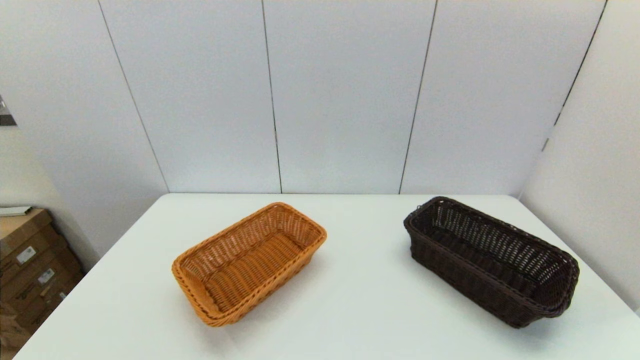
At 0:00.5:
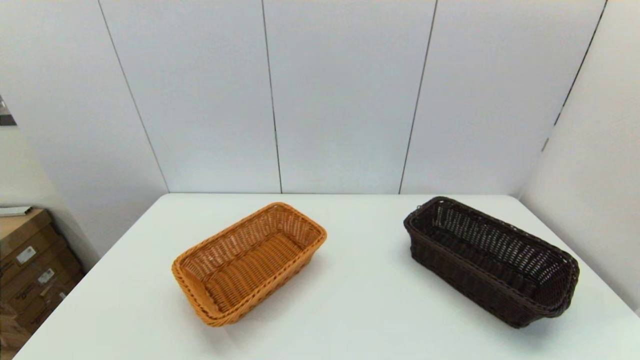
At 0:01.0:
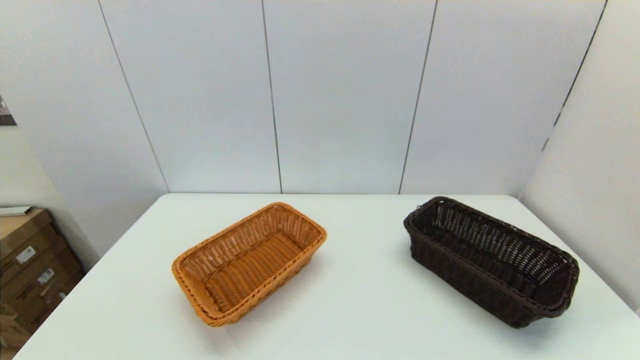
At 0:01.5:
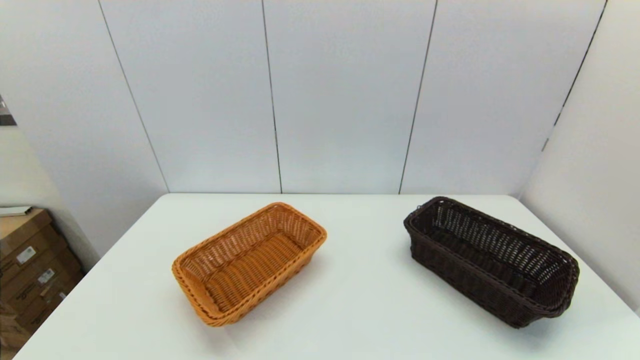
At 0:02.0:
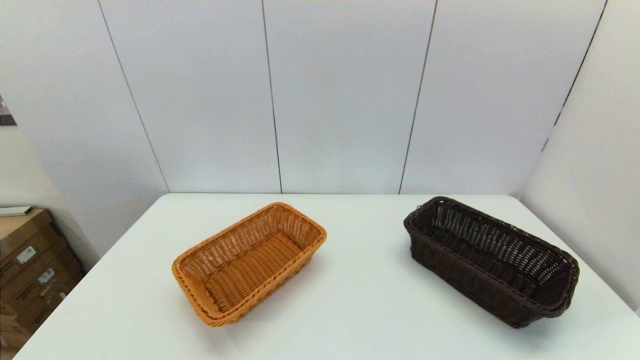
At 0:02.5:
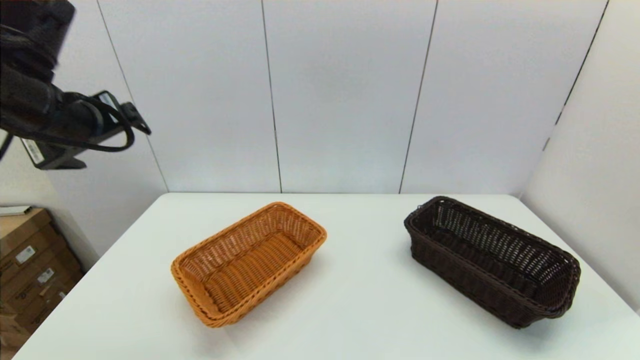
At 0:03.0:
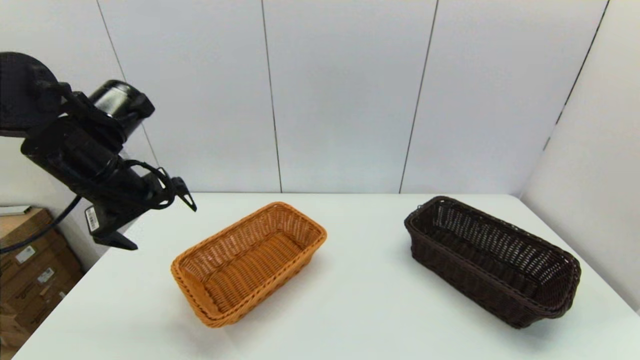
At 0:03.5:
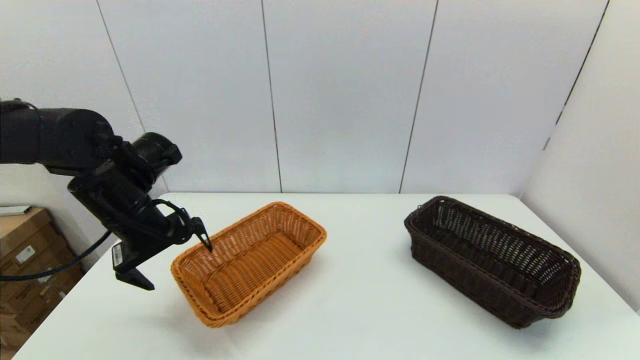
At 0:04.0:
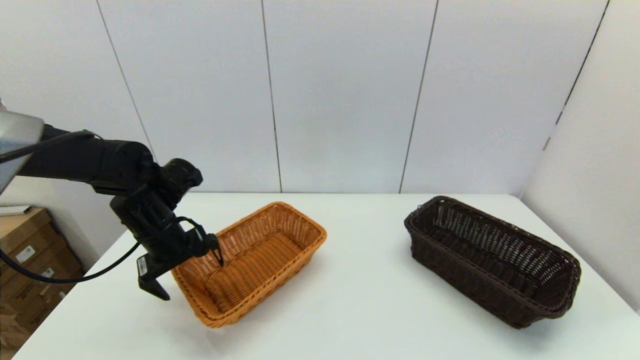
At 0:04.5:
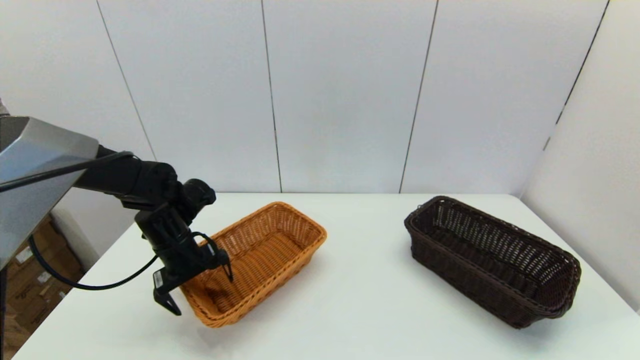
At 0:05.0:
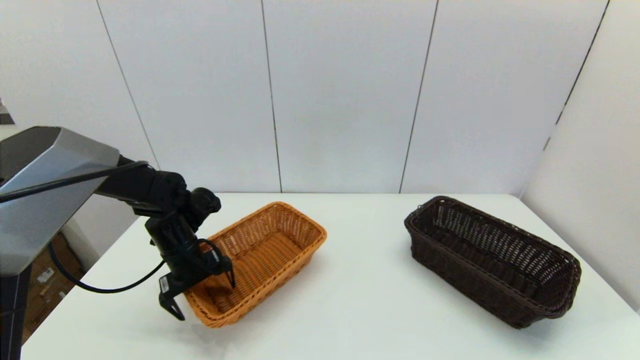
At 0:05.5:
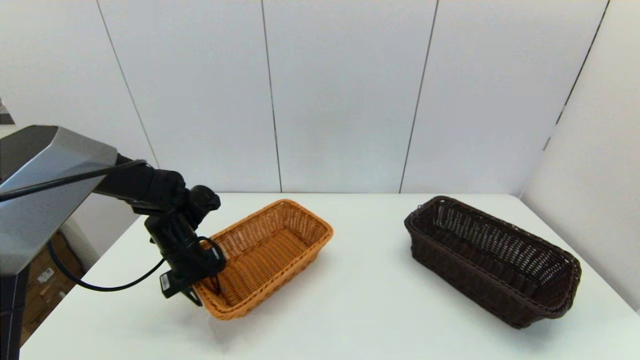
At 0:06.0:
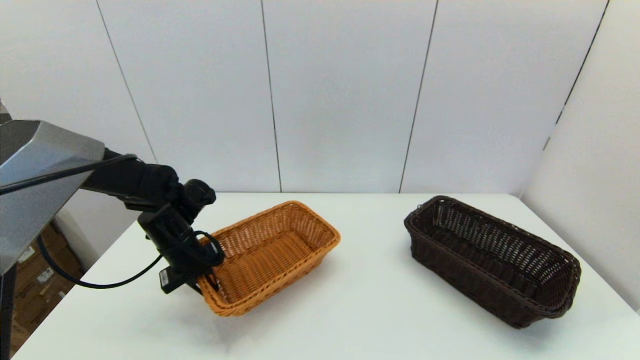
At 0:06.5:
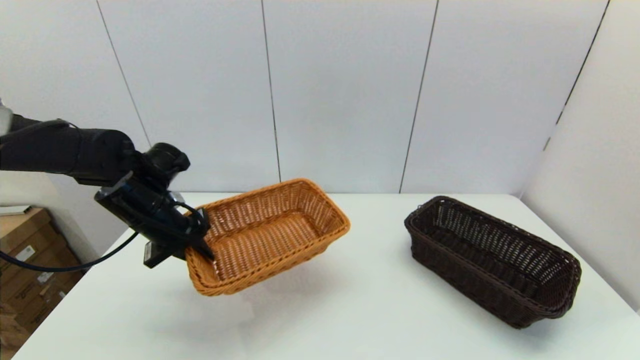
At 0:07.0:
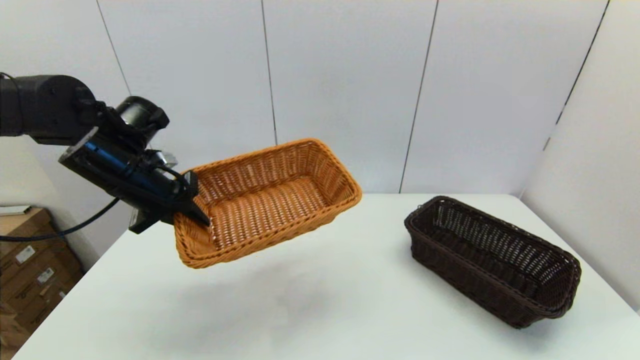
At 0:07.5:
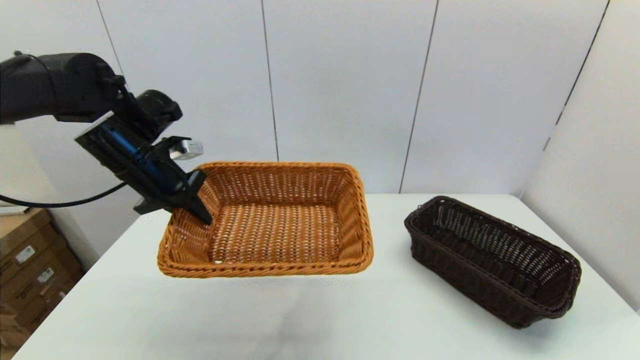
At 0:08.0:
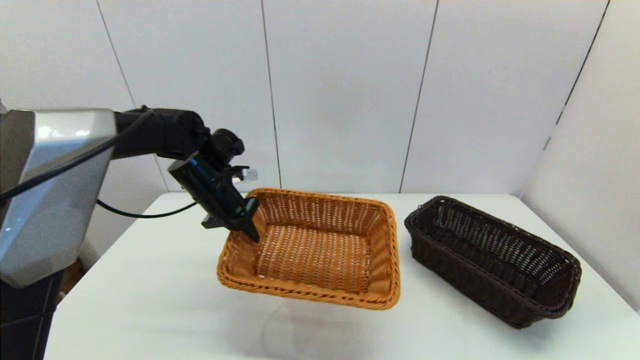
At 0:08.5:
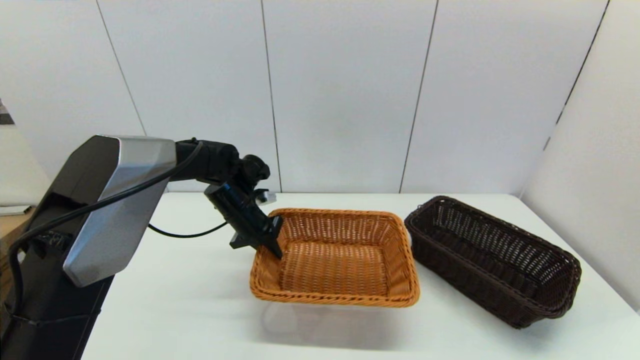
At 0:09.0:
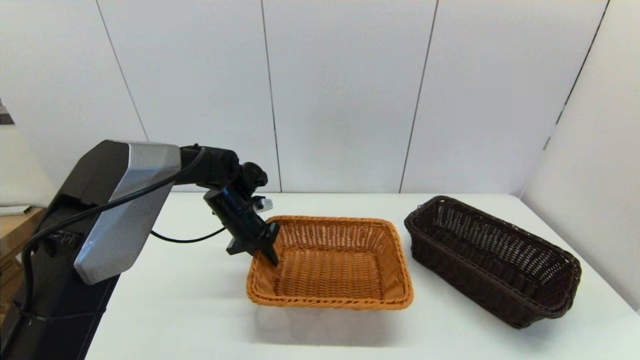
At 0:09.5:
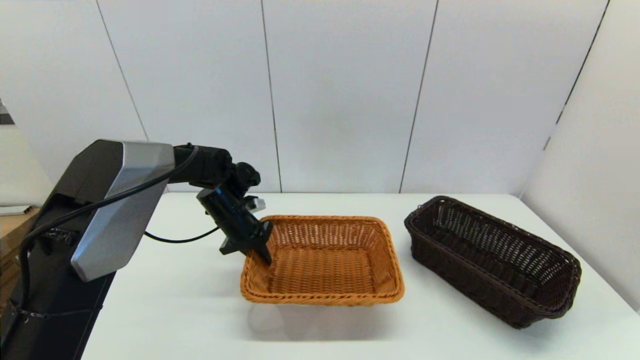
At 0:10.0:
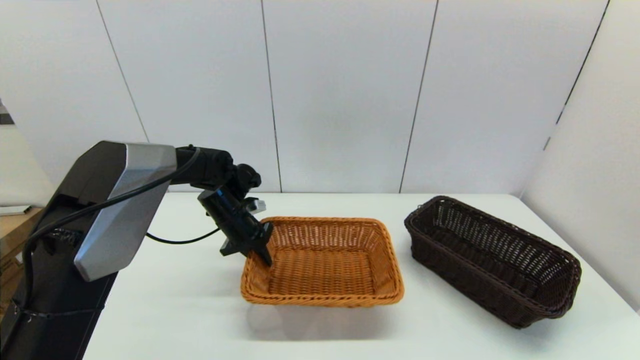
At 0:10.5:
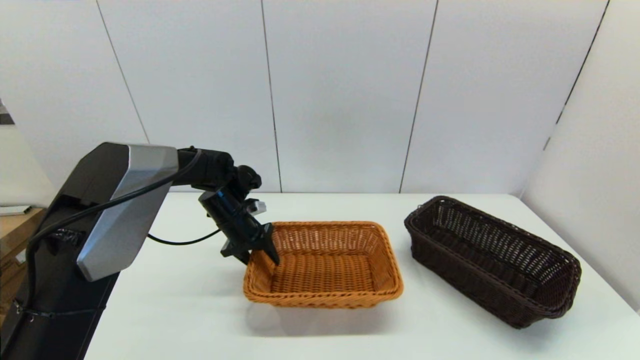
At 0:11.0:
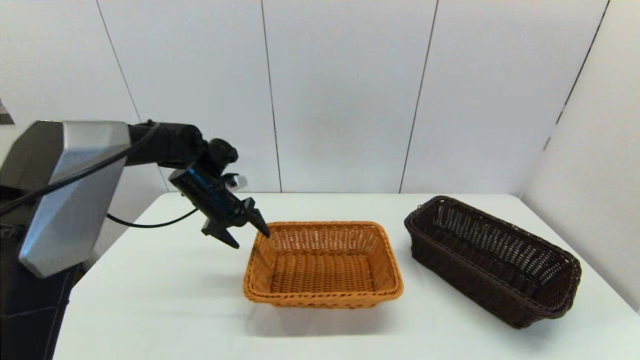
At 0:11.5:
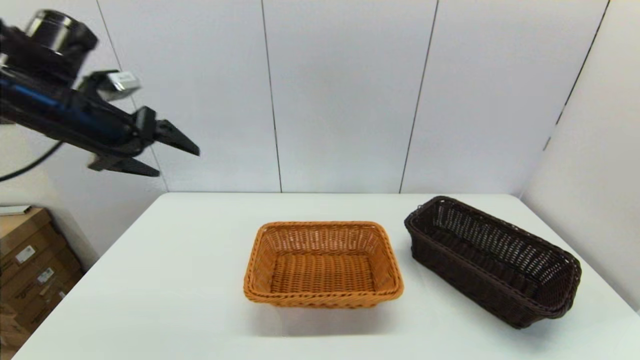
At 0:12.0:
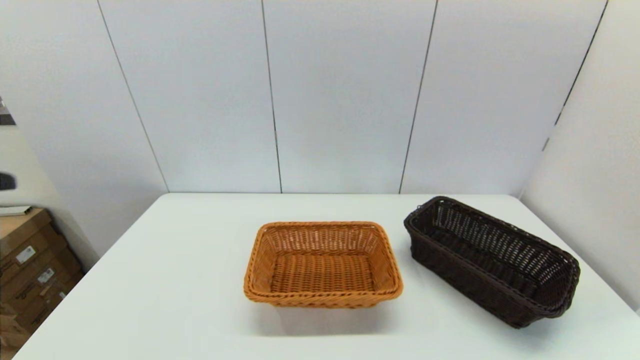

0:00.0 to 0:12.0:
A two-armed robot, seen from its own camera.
Task of the whole recording: stack a basket on top of another basket.
Step, 0:02.5 to 0:05.5: Grasp the light basket with the left gripper.
Step, 0:06.0 to 0:11.0: Place the light basket on the middle of the table with the left gripper.
0:02.0 to 0:04.0: The left gripper travels downward and forward by approximately 35 cm.
0:04.0 to 0:06.0: The left gripper closes.
0:06.0 to 0:08.0: The left gripper heads to the right and upward, covering roughly 10 cm.
0:08.0 to 0:10.0: The left gripper heads downward, covering about 5 cm.
0:10.0 to 0:12.0: The left gripper heads backward and upward, covering some 40 cm, and opens its fingers.

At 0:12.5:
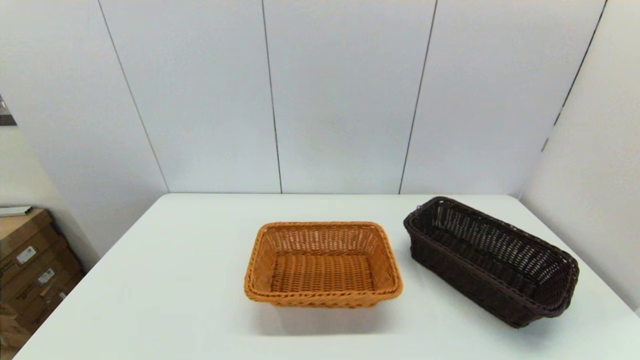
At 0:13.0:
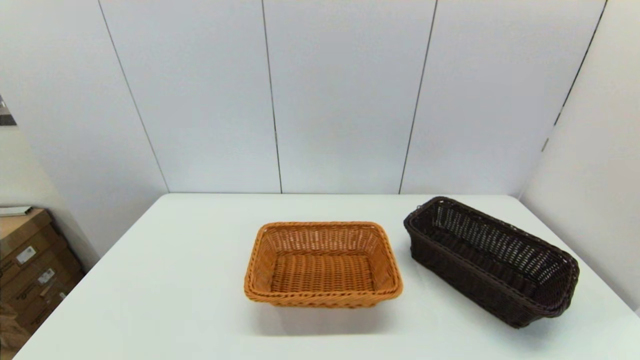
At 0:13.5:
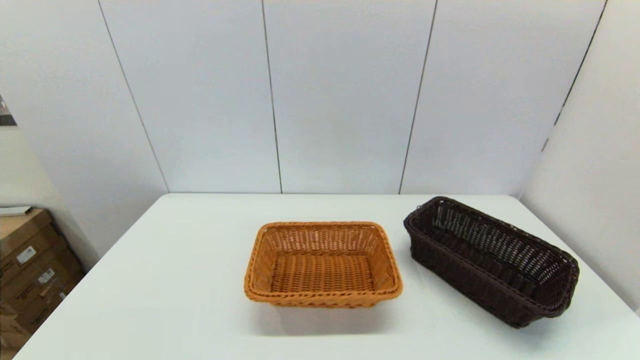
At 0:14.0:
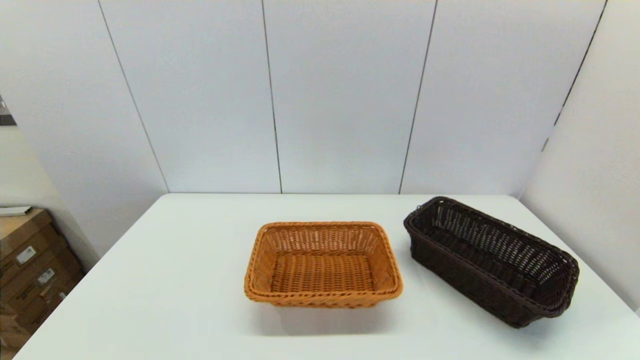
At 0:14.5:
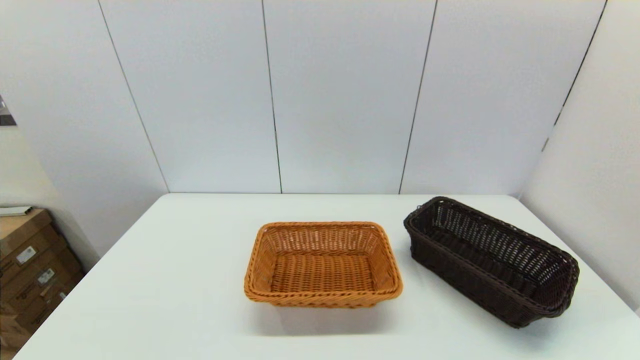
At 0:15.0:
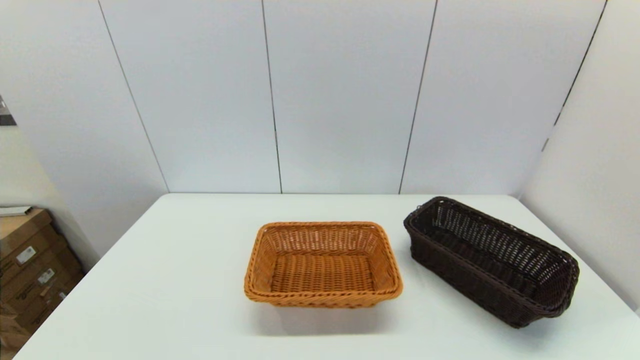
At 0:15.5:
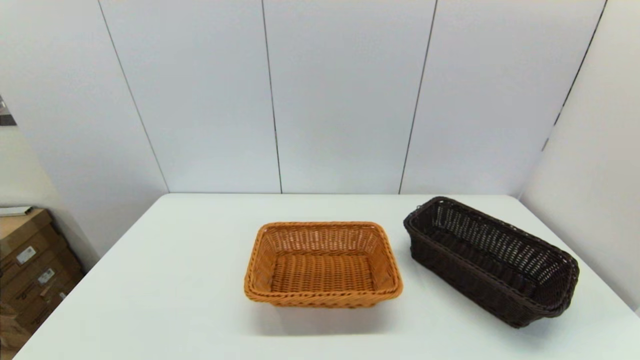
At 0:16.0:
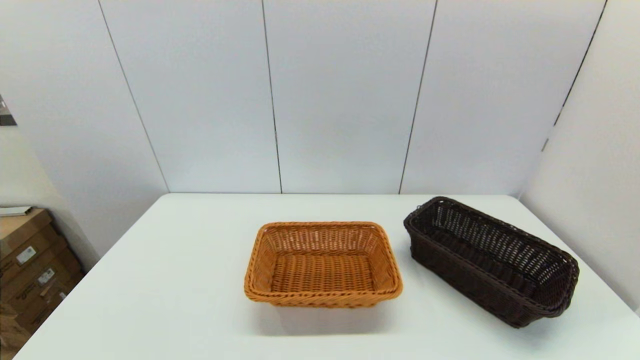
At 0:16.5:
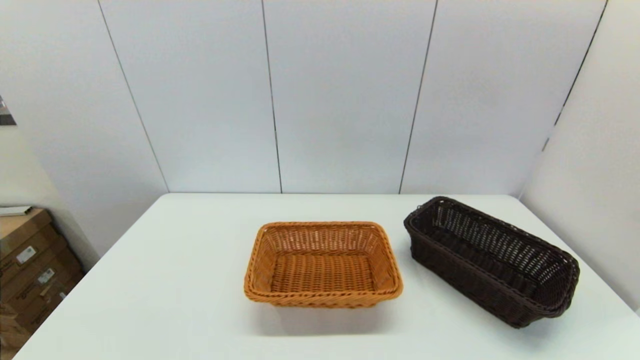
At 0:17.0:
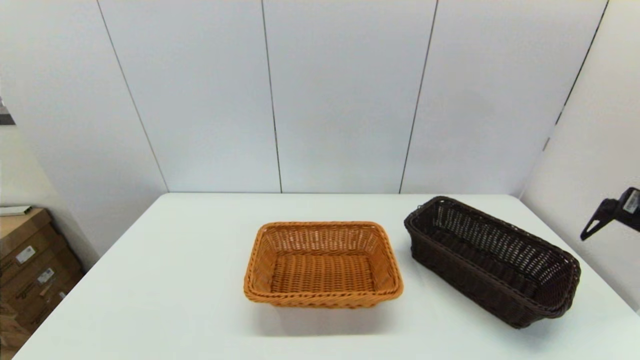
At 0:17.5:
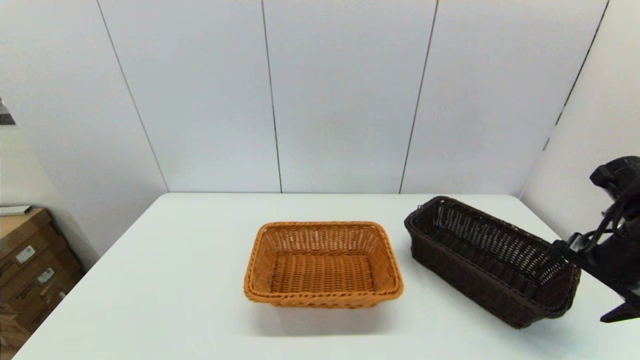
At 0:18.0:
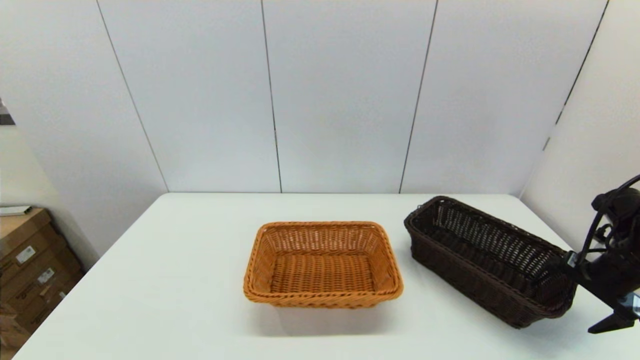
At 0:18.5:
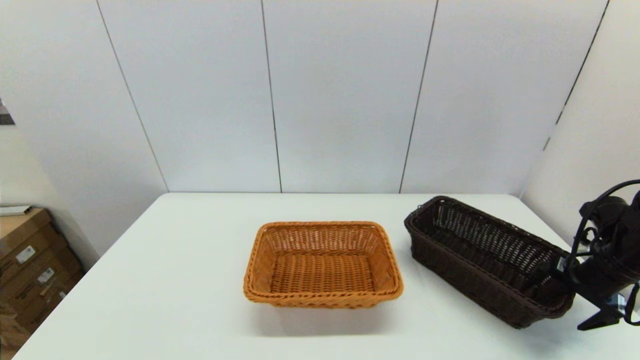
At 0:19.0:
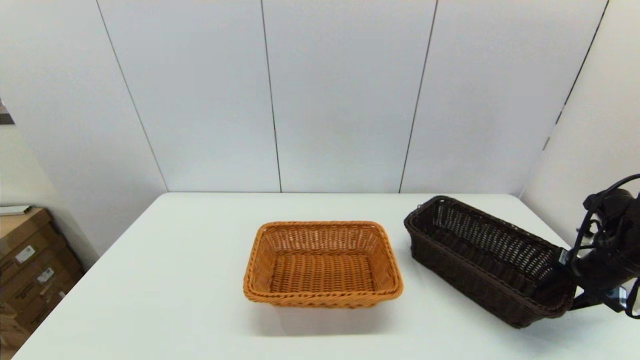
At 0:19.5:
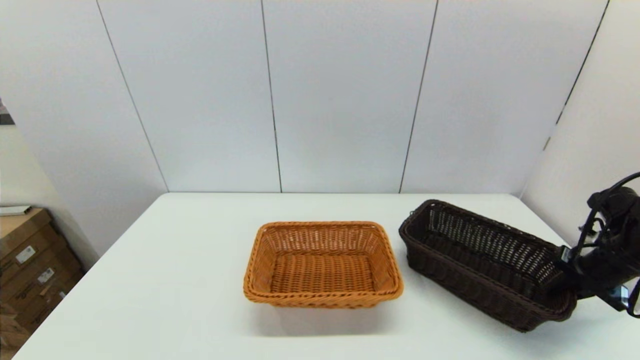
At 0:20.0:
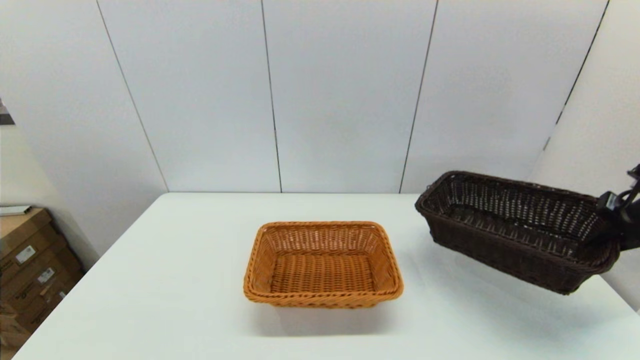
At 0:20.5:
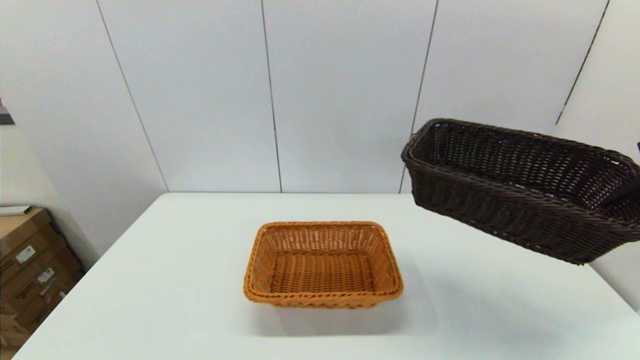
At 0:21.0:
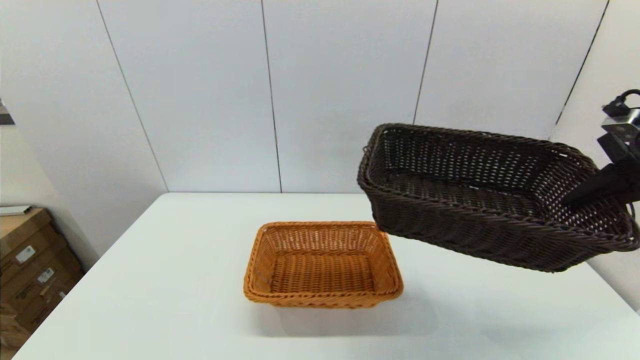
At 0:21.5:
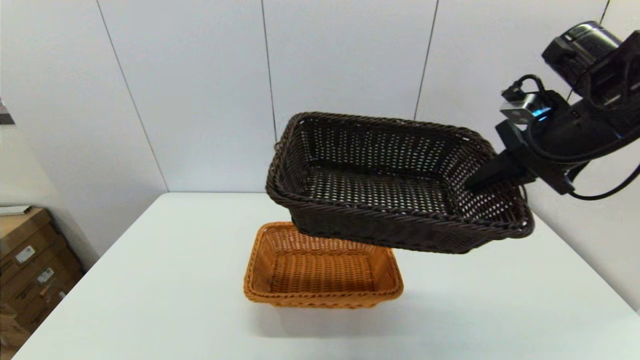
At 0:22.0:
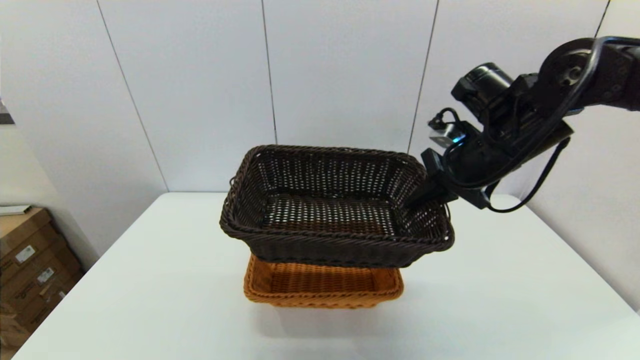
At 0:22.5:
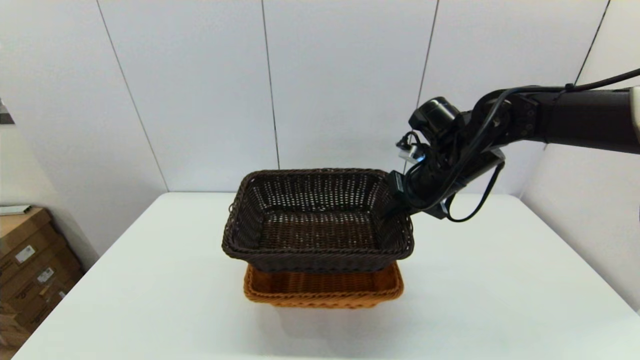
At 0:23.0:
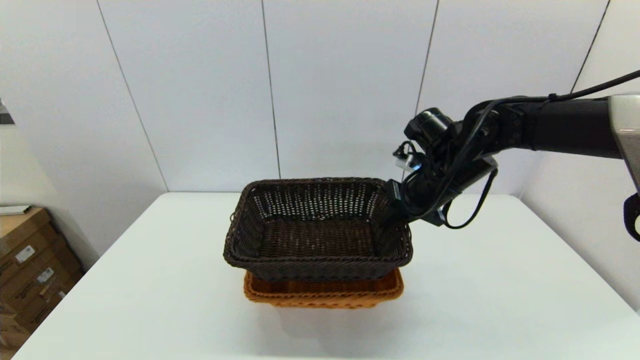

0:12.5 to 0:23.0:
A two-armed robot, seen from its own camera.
Task of the whole recording: stack a basket on top of another basket.
Step, 0:12.5 to 0:19.0: Grasp the dark basket with the right gripper.
0:16.5 to 0:19.0: The right gripper shifts some 30 cm downward and forward, and closes its fingers.
0:19.0 to 0:21.0: The right gripper moves upward, roughly 20 cm.
0:21.0 to 0:23.0: The right gripper is displaced to the left, downward and forward by approximately 25 cm.
